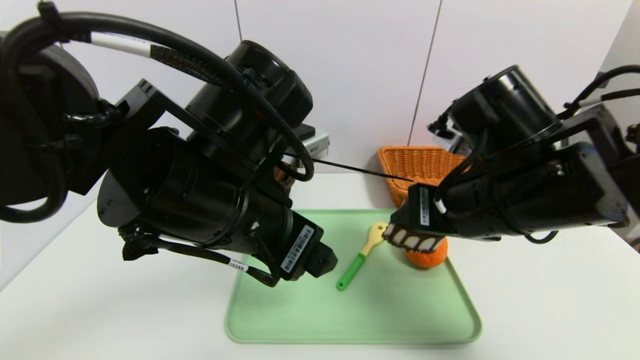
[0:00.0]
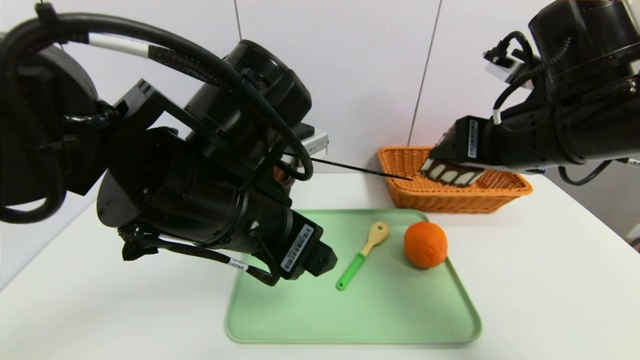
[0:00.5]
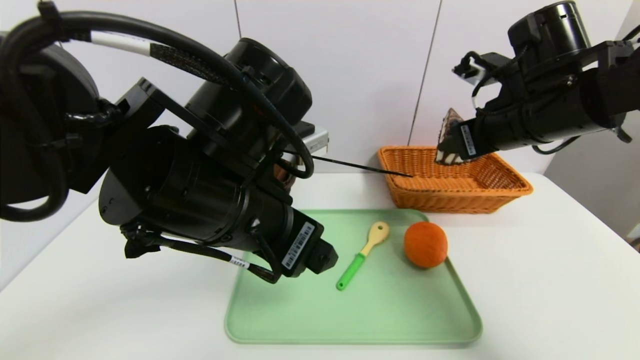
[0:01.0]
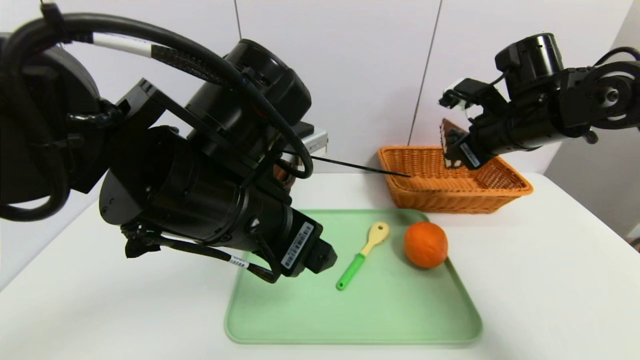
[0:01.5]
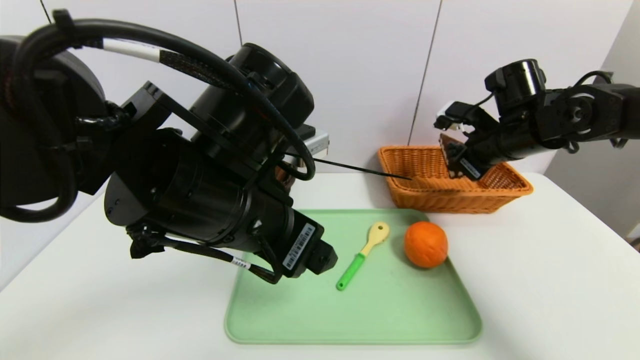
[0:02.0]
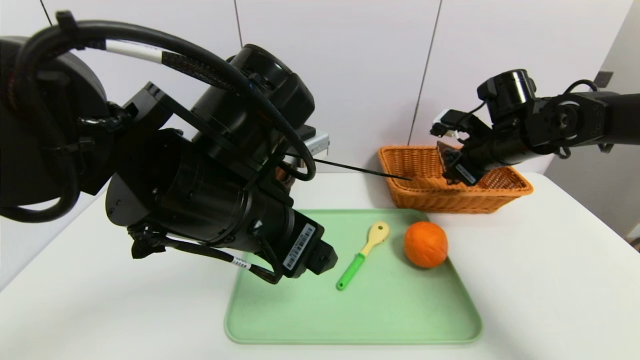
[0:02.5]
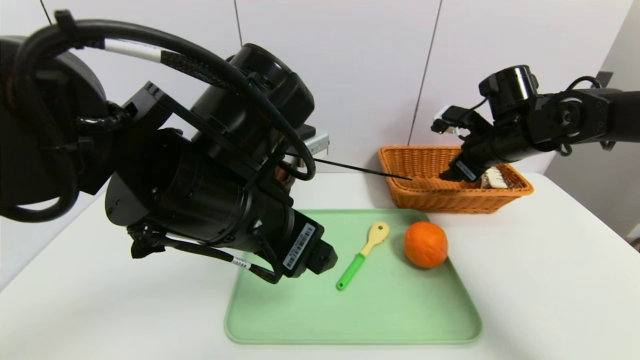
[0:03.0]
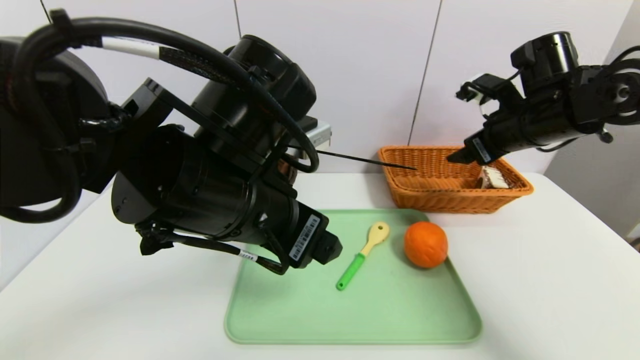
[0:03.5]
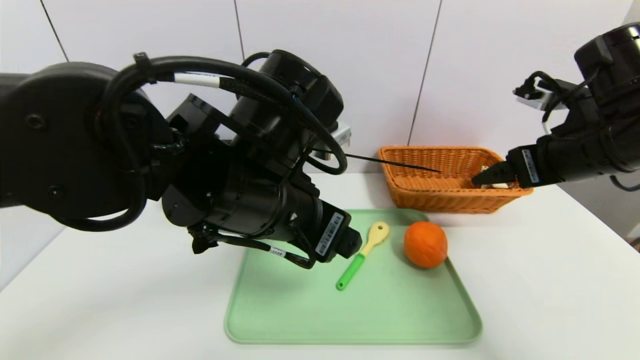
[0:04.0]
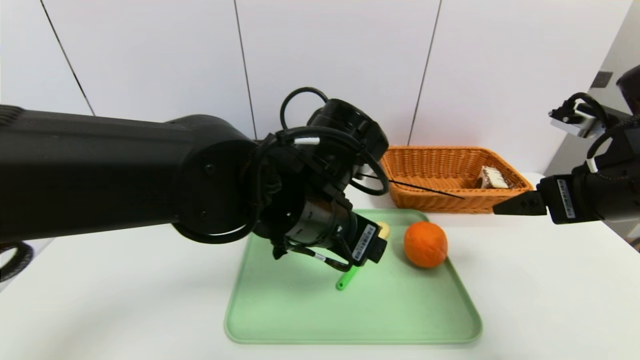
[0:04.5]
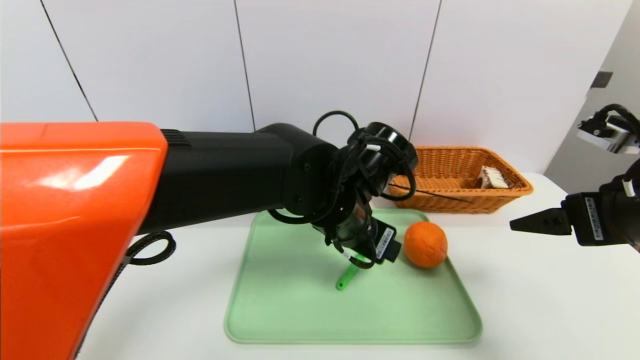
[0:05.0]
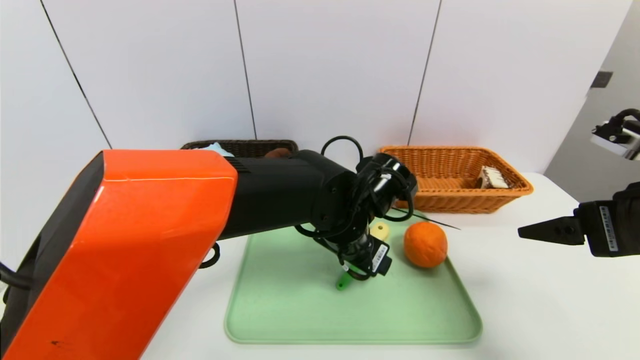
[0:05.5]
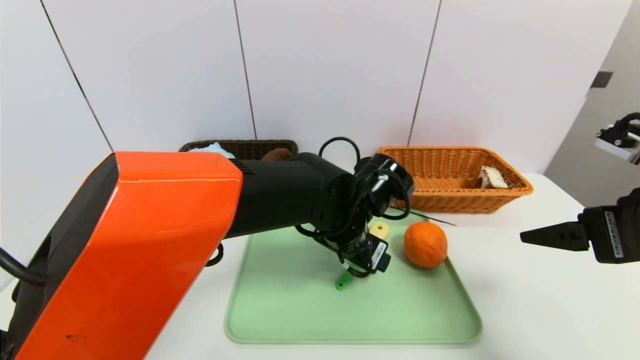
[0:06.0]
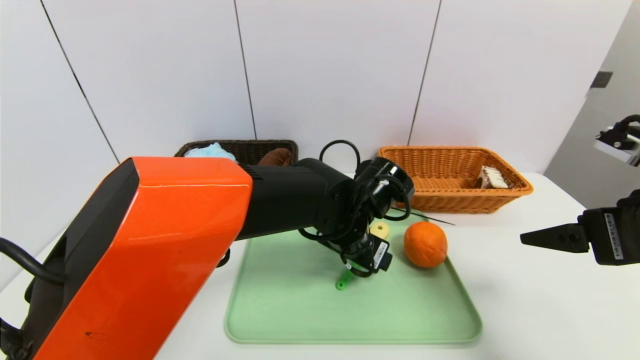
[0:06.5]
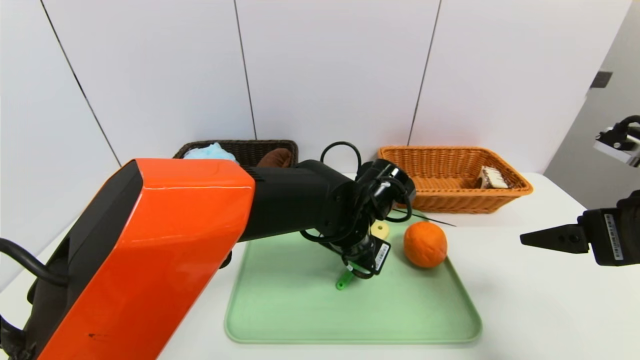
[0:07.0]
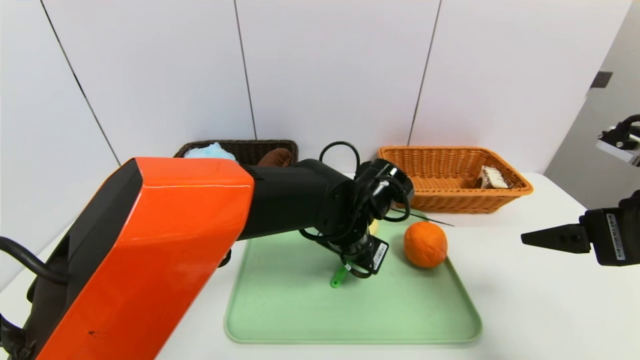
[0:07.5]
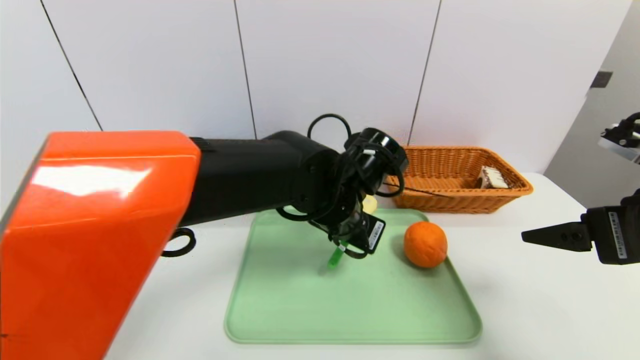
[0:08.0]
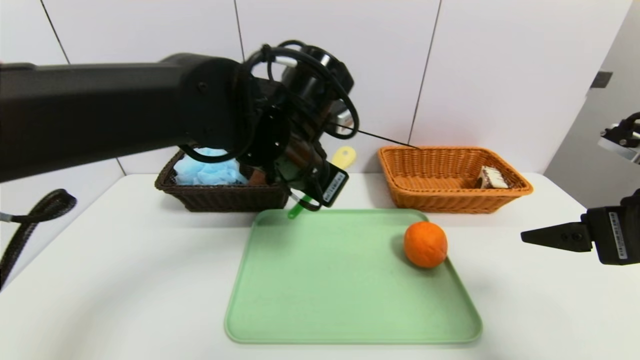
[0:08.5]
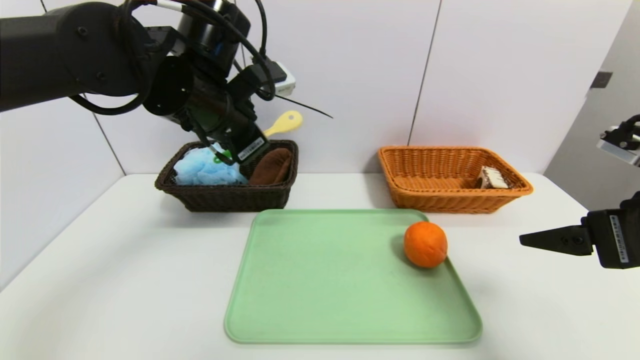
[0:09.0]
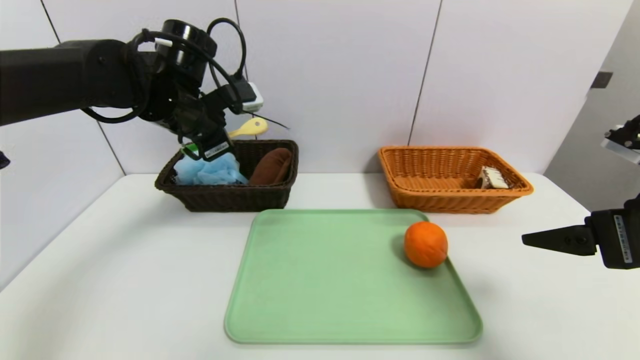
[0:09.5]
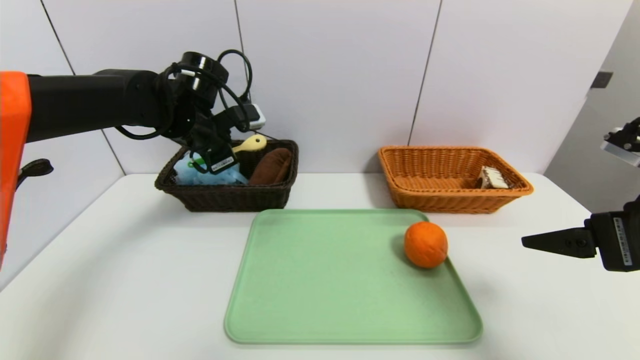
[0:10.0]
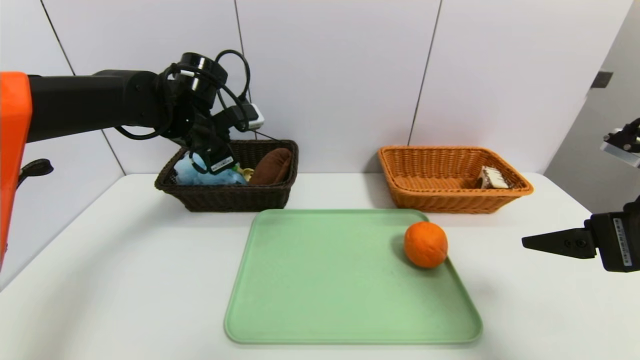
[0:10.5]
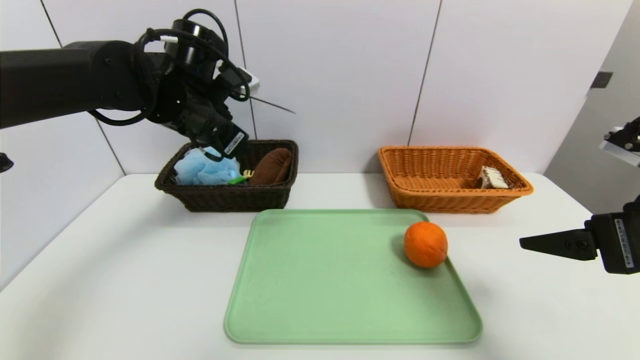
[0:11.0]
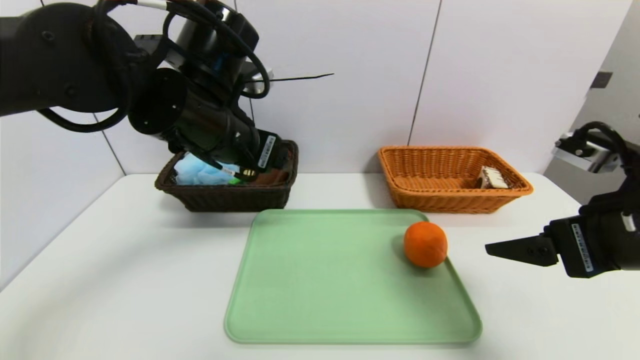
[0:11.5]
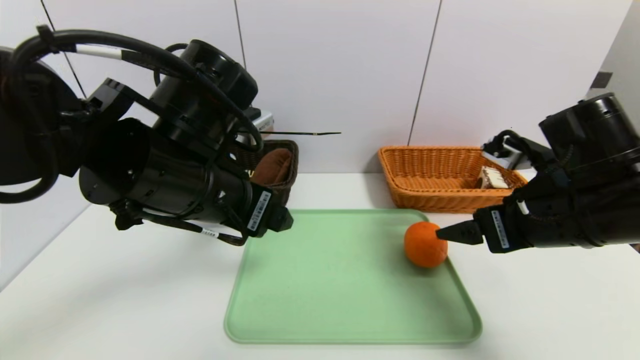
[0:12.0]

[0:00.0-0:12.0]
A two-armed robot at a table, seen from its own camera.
Task of the whole recording: place the food in the right basket with the right gripper, and place the non food items in the left basket with the left gripper.
Step, 0:00.0 to 0:03.0: Grasp the triangle cake and put it in the right basket.
Step, 0:03.5 to 0:10.5: Grasp the spoon and put it in the left basket.
0:00.0 to 0:02.0: The right gripper goes some 20 cm forward and to the right.
0:02.0 to 0:04.0: The right gripper shifts roughly 10 cm backward, and opens its fingers.
0:04.0 to 0:06.0: The left gripper travels downward, to the right and forward by roughly 15 cm, while the right gripper travels backward by some 10 cm.
0:06.0 to 0:08.0: The left gripper closes.
0:08.0 to 0:10.0: The left gripper moves to the left and forward, approximately 25 cm.
0:10.0 to 0:12.0: The right gripper heads forward and to the left, covering about 10 cm, while the left gripper heads backward, covering approximately 20 cm, and opens its fingers.

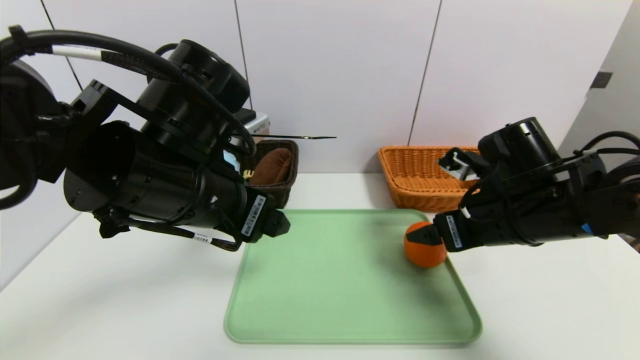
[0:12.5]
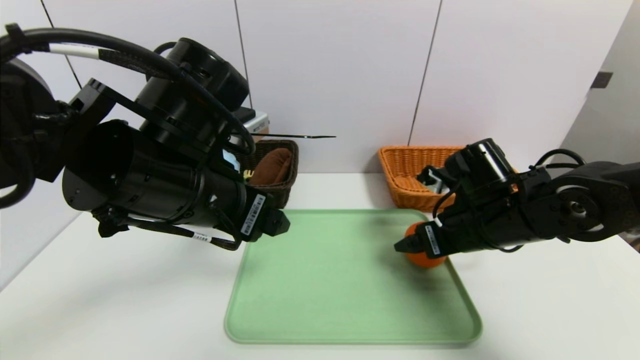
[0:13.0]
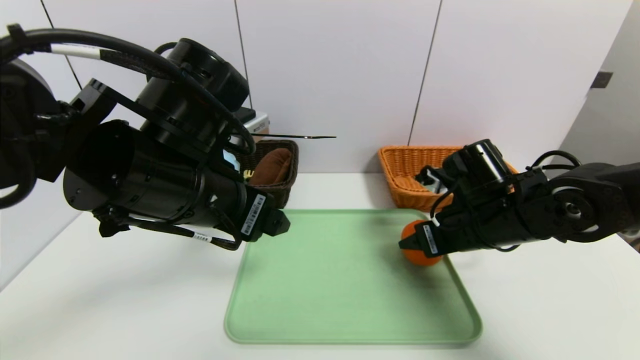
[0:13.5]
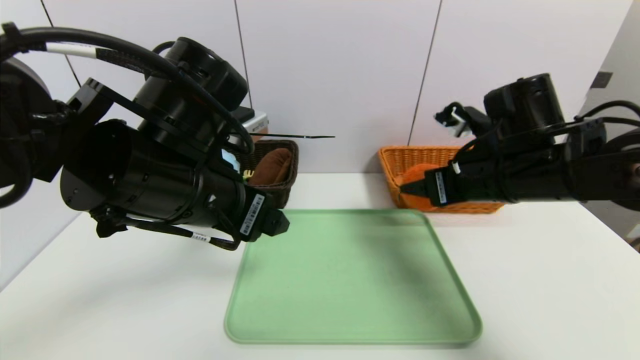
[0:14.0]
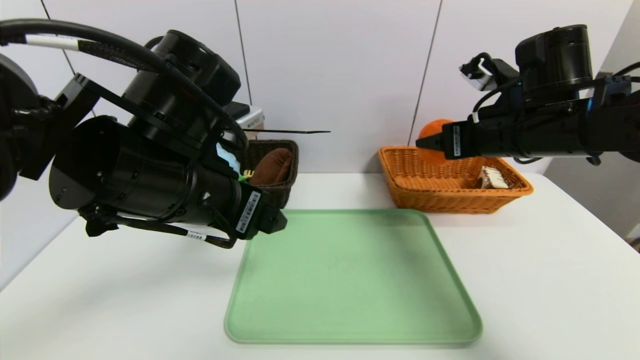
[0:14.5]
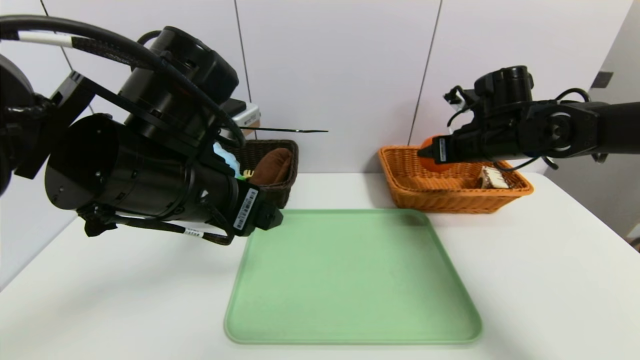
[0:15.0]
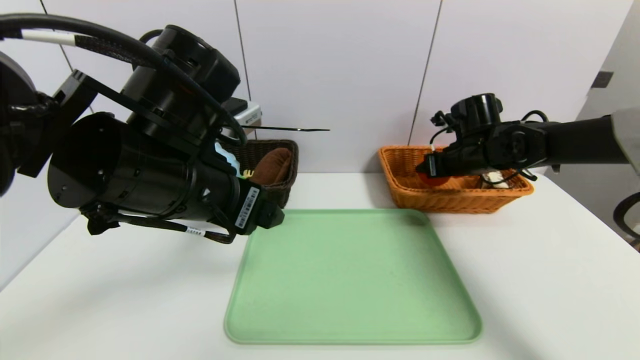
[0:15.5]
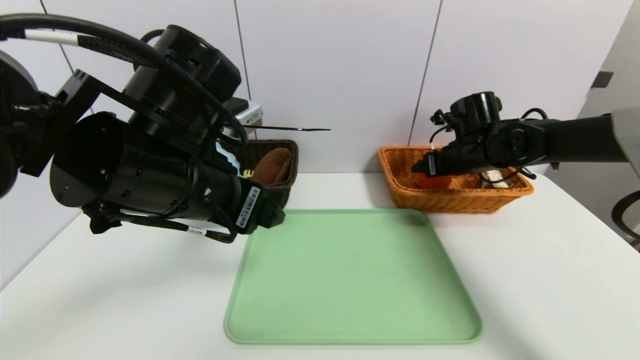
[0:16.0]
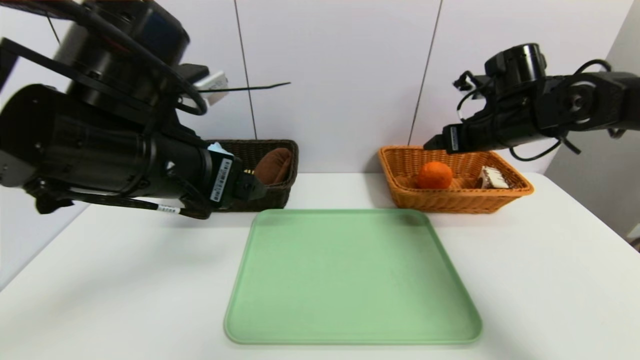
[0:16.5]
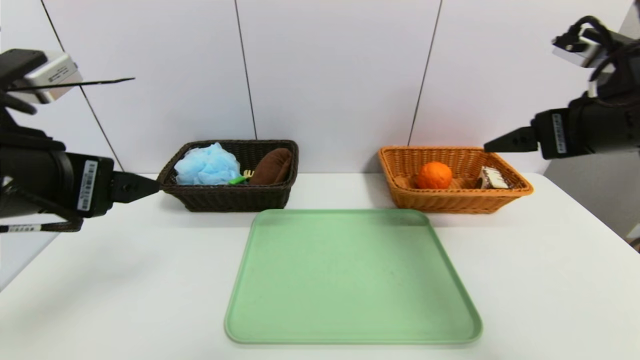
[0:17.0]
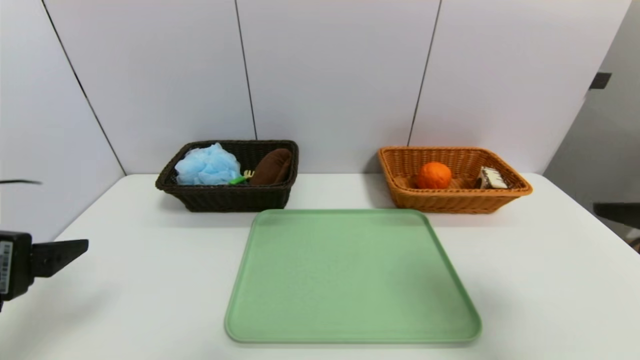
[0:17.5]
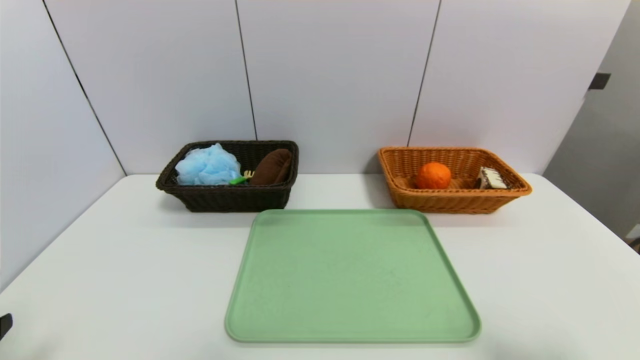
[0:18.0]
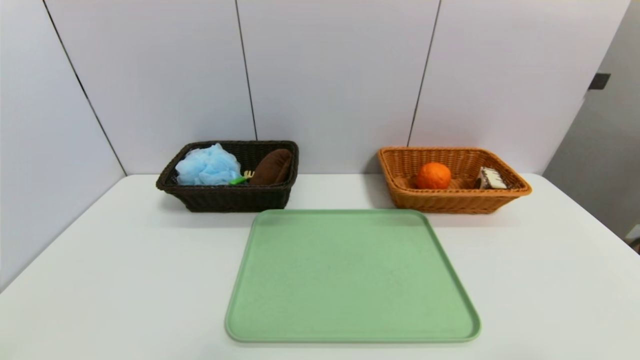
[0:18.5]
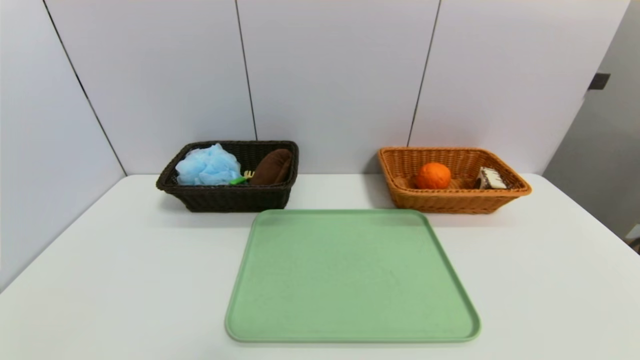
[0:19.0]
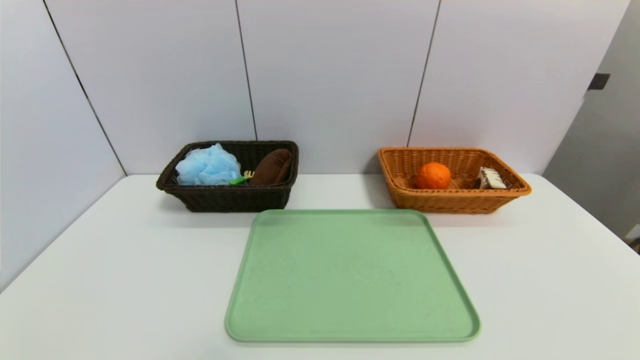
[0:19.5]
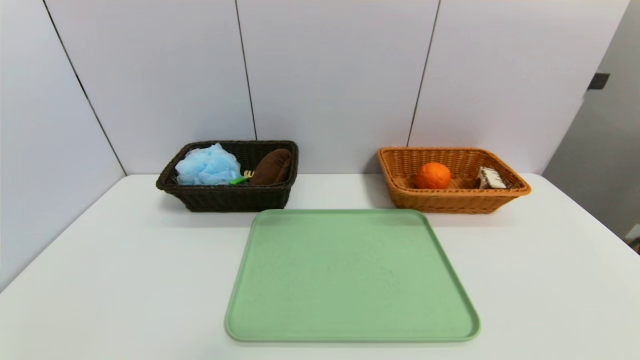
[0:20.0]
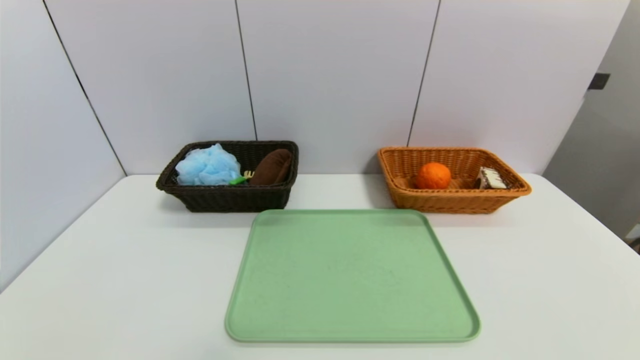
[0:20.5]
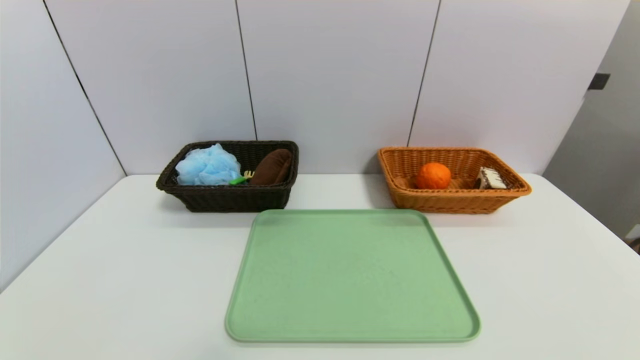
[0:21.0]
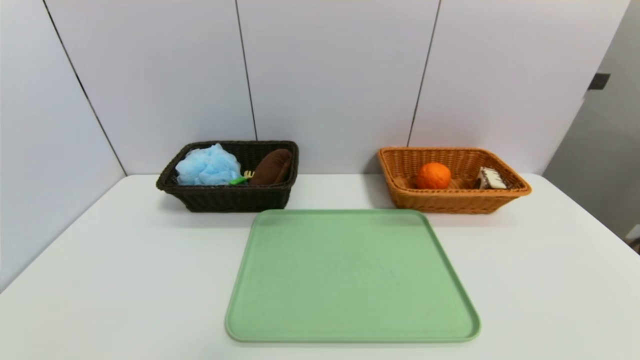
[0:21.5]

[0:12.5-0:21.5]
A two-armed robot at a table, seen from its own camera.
Task of the whole recording: place the food in the right basket with the right gripper, and place the non food items in the left basket with the left gripper.
Step, 0:12.5 to 0:16.0: Grasp the orange and put it in the right basket.
0:12.5 to 0:14.5: The right gripper travels upward and forward by roughly 10 cm, and closes its fingers.
0:14.5 to 0:17.0: The right gripper travels backward by about 10 cm, and opens. The left gripper heads to the left and backward, covering about 10 cm.
0:17.0 to 0:19.5: The right gripper moves backward and downward, approximately 35 cm. Meanwhile the left gripper is displaced downward, backward and to the left by some 25 cm.
